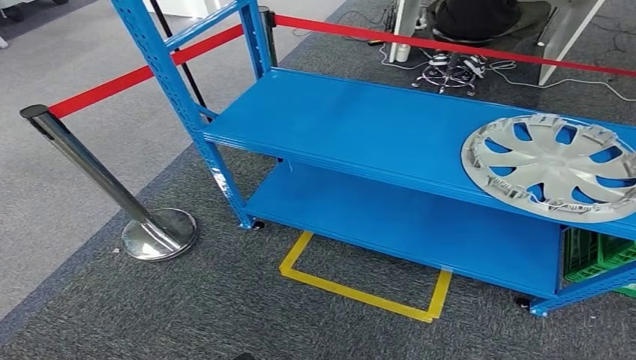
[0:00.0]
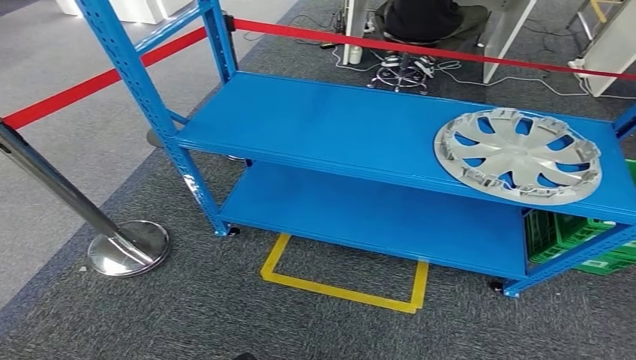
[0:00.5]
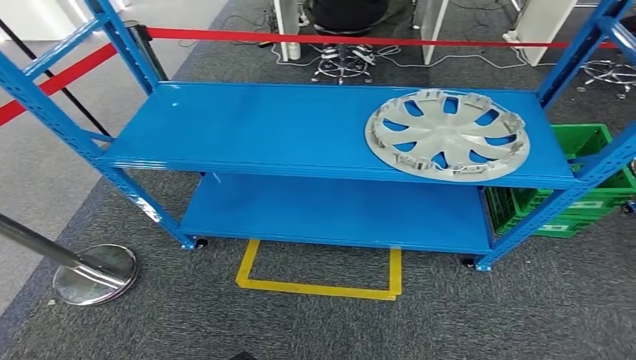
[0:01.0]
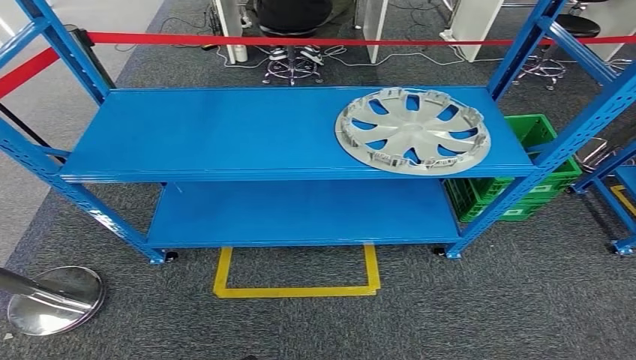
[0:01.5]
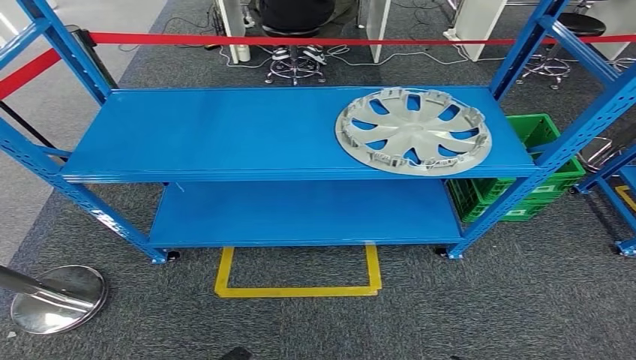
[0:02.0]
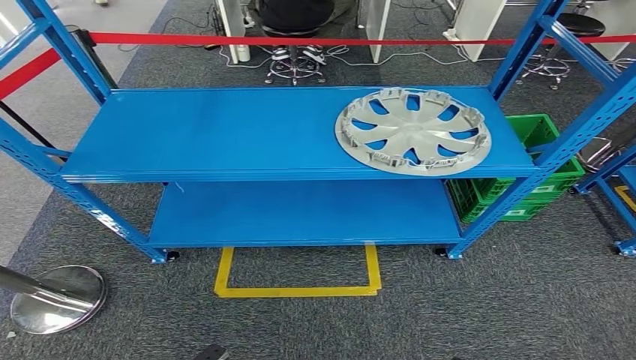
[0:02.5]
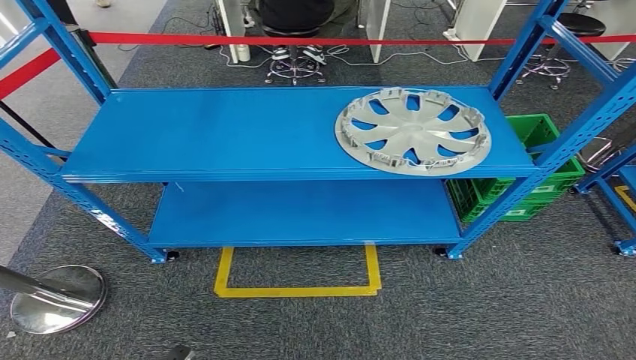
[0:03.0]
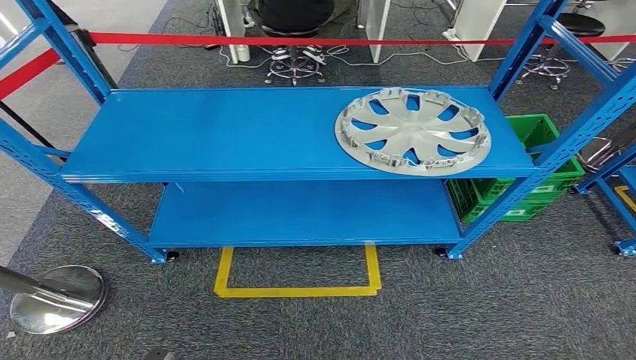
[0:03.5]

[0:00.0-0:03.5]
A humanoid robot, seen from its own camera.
Step, 0:00.0 to 0:03.5: Return to the initial position at the workbench.

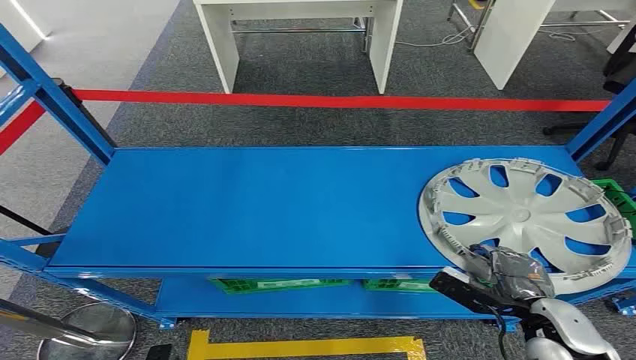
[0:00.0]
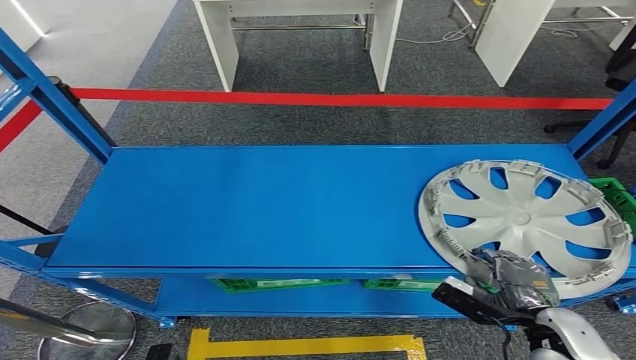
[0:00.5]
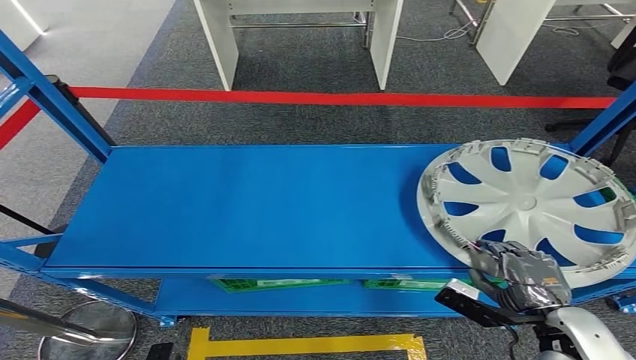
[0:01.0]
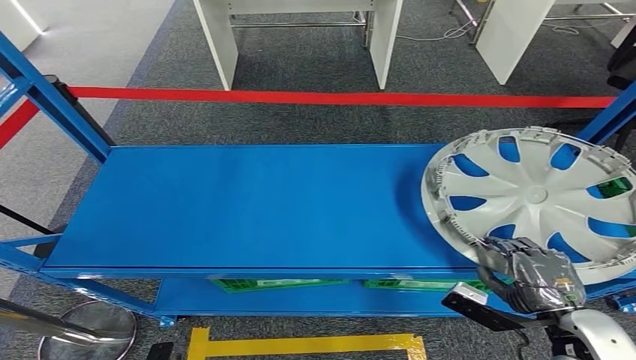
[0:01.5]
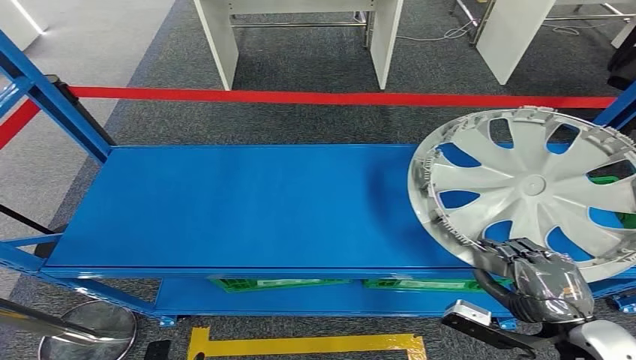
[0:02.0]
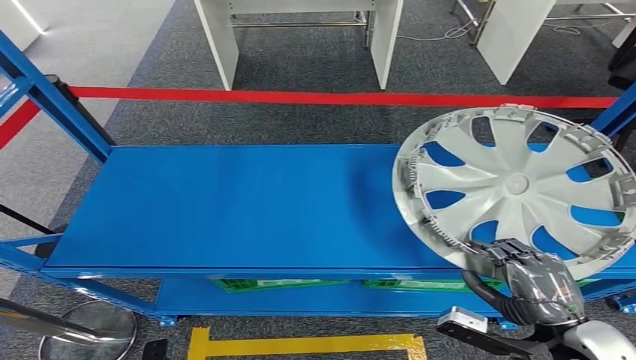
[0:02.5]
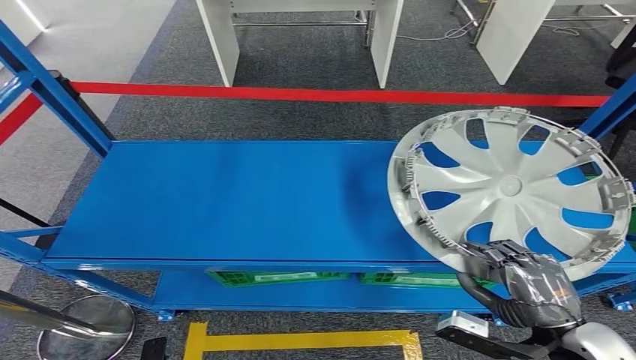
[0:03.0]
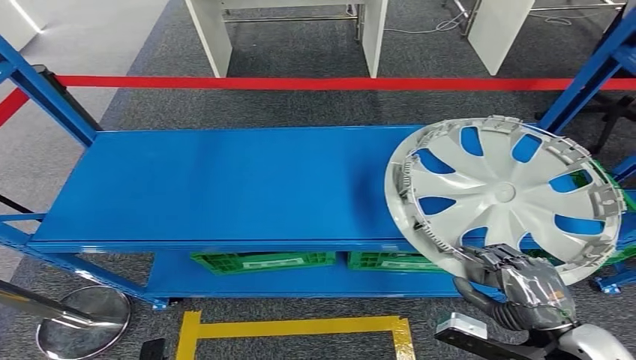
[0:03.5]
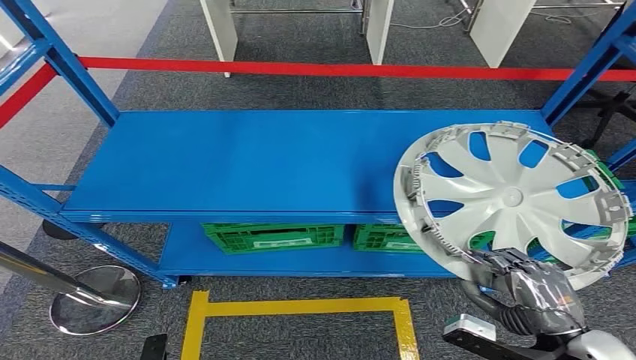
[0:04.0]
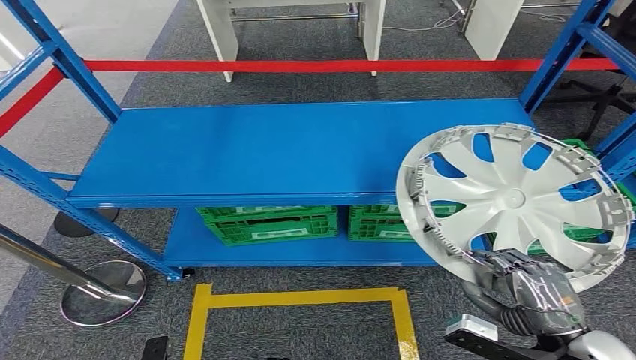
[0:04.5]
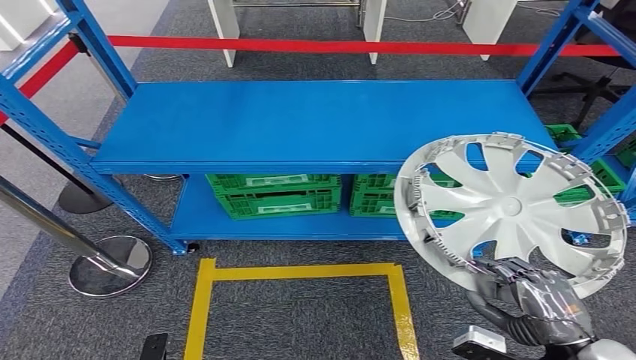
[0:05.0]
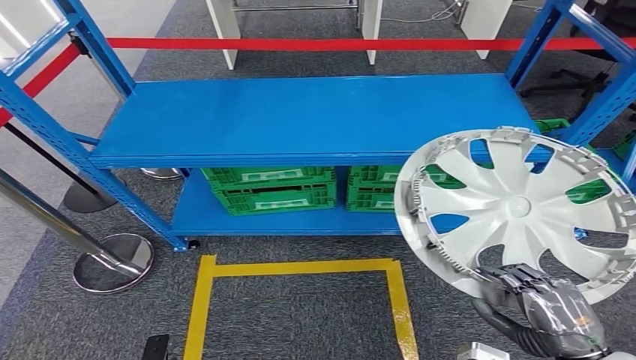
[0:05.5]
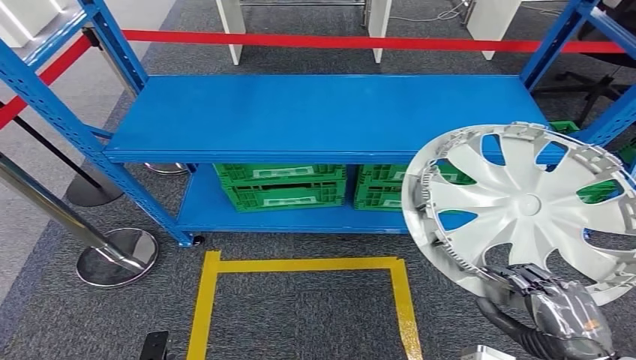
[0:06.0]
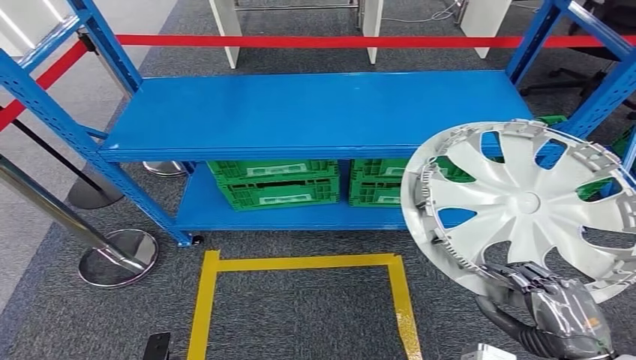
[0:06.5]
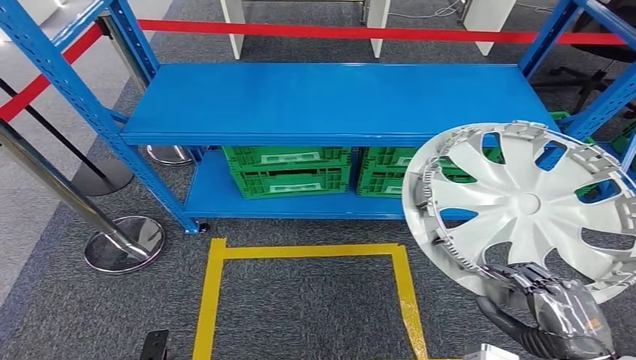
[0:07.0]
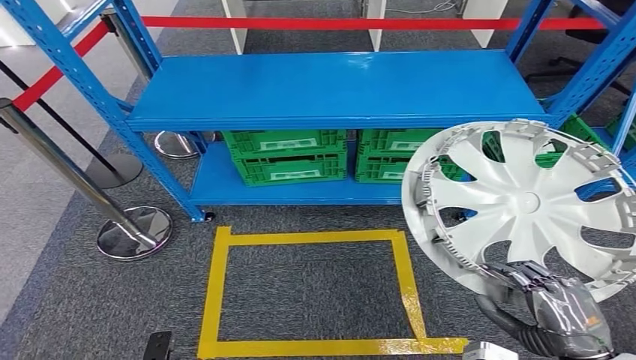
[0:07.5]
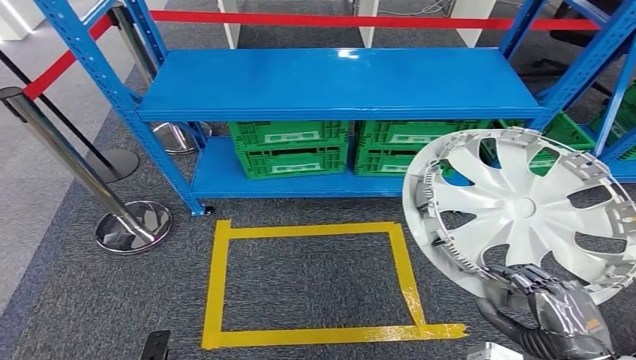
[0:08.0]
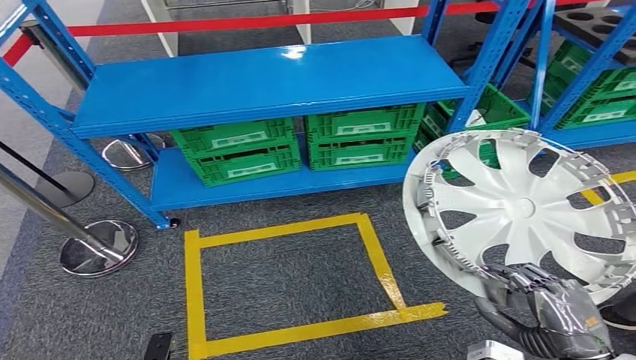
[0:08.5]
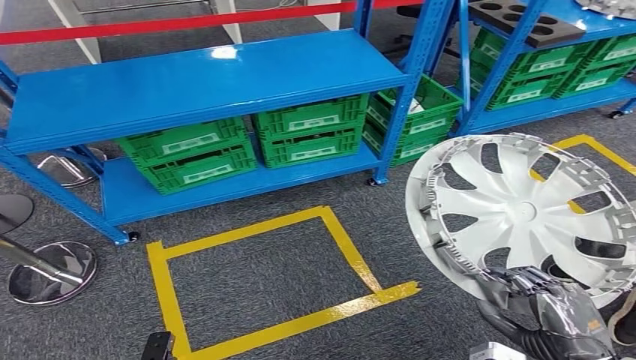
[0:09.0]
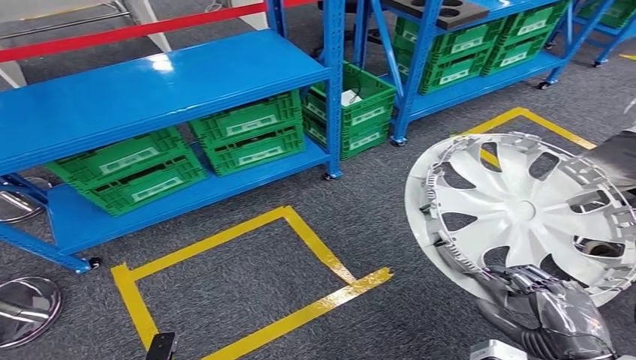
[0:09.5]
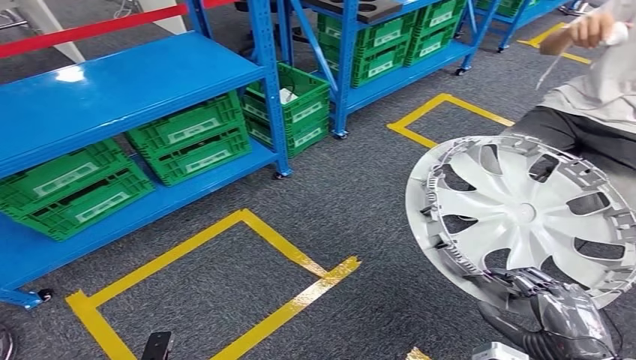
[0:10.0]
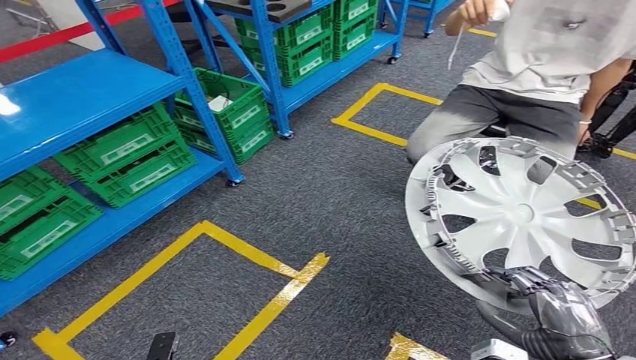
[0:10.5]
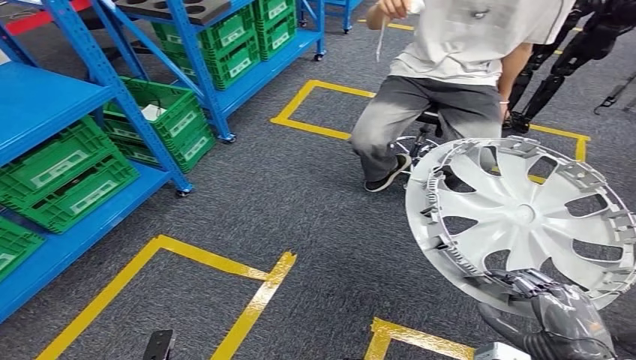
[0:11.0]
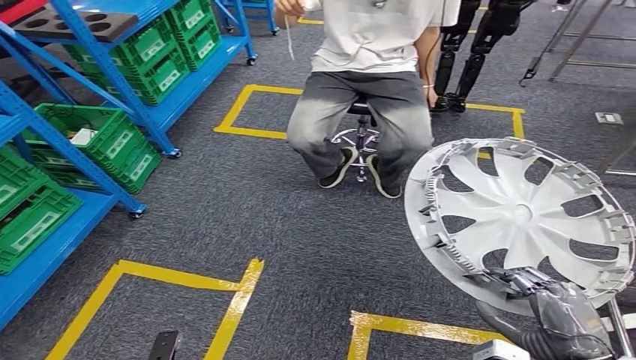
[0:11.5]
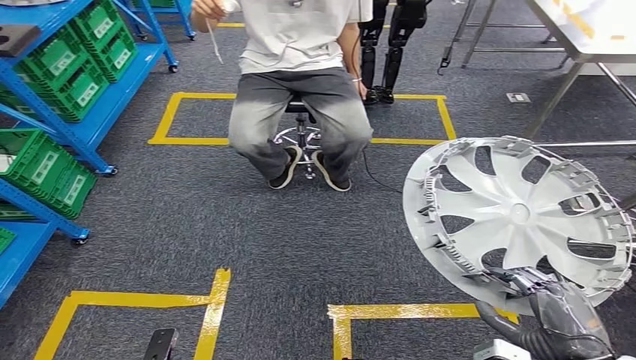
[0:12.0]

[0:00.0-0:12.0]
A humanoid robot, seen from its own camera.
Step, 0:00.0 to 0:03.5: Pick up the small component from the shelf.

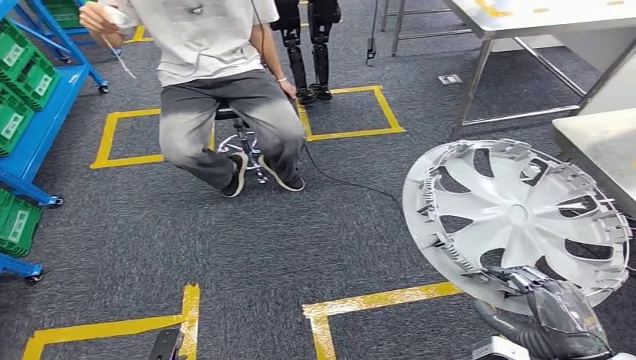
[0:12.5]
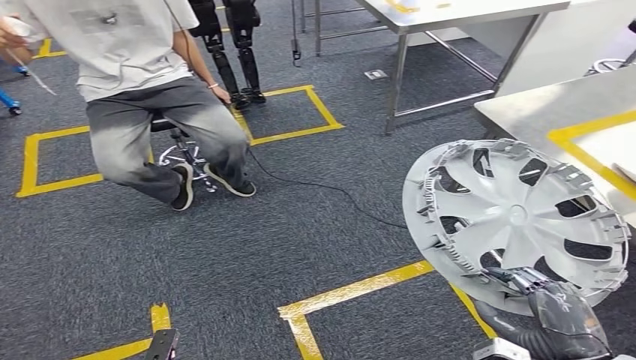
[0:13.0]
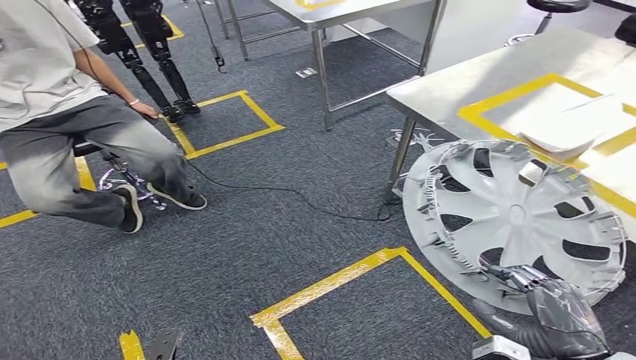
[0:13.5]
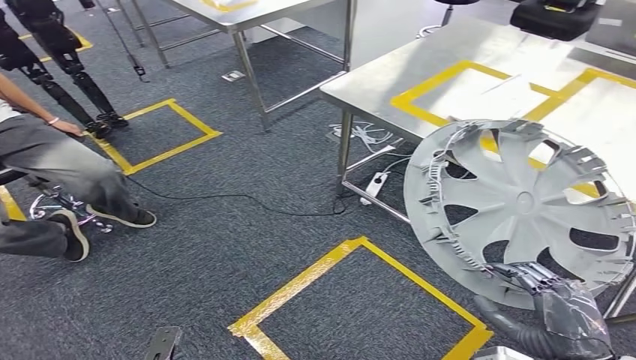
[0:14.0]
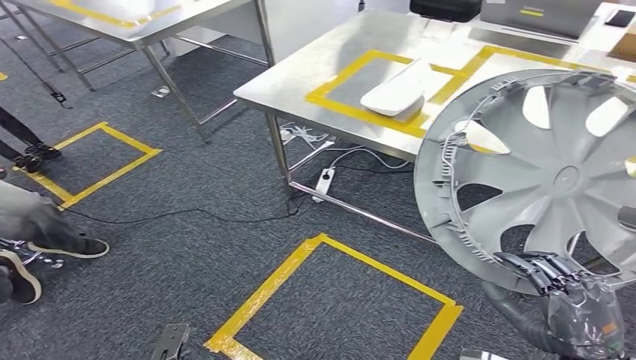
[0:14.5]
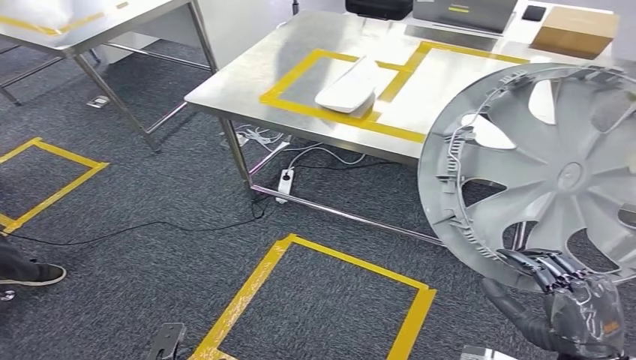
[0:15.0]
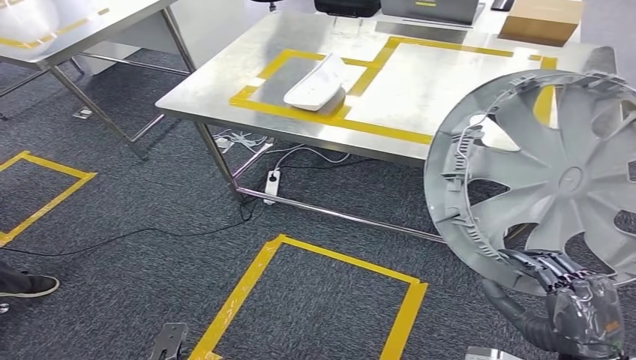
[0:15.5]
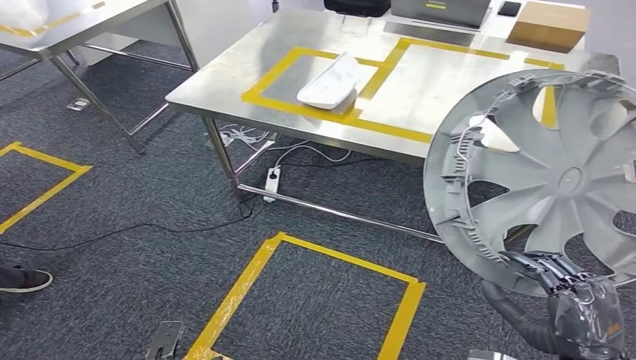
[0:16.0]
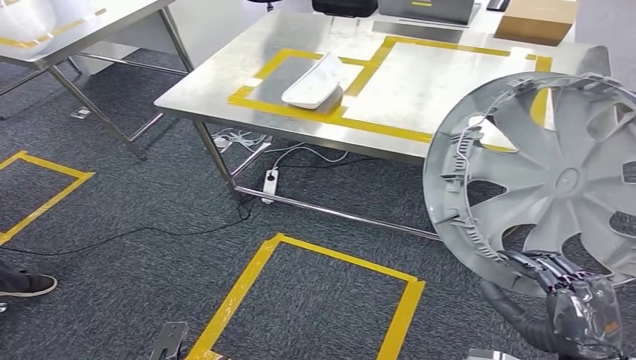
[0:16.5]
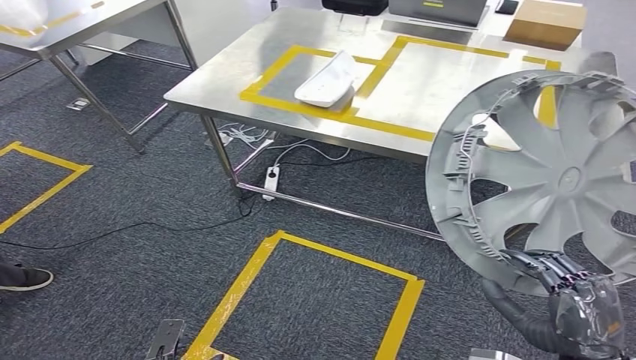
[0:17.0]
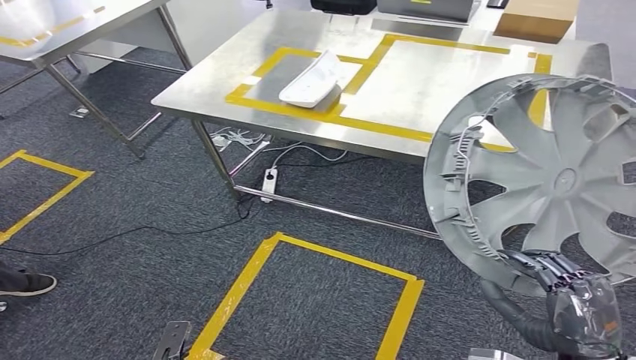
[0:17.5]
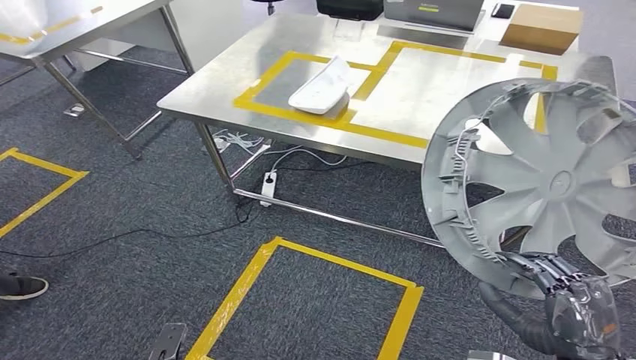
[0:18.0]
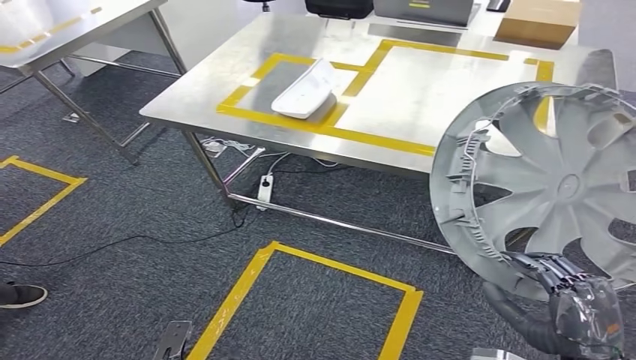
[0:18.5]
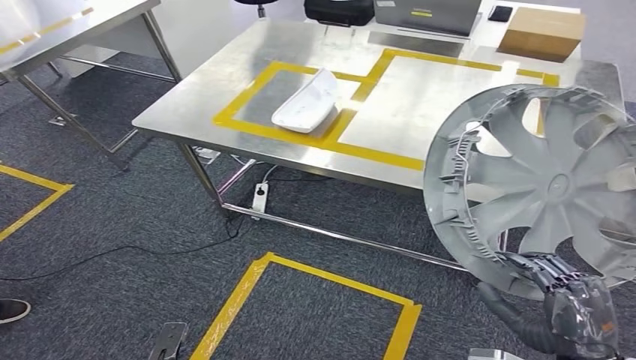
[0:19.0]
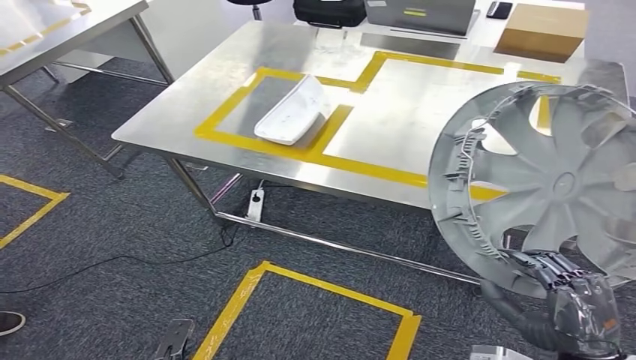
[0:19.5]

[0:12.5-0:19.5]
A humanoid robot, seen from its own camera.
Step, 0:12.5 to 0:16.5: Move the small component to the workbench.
0:16.0 to 0:17.5: Both hands stay put.
